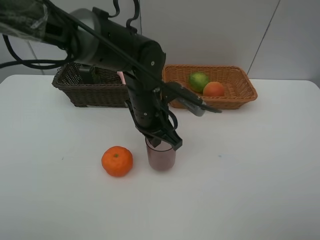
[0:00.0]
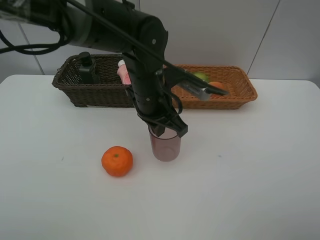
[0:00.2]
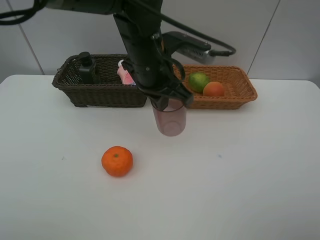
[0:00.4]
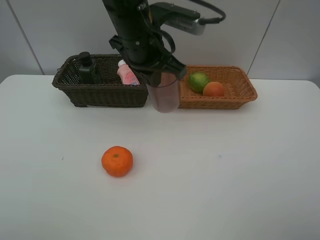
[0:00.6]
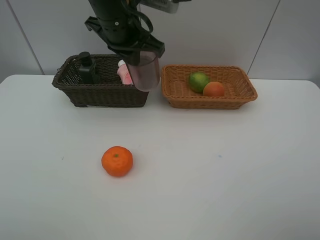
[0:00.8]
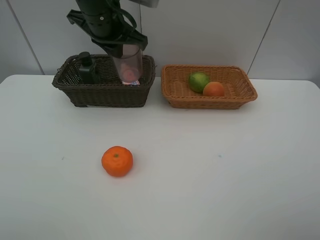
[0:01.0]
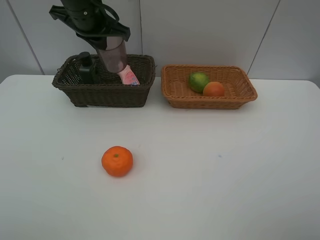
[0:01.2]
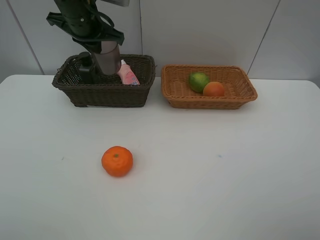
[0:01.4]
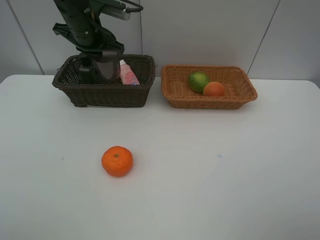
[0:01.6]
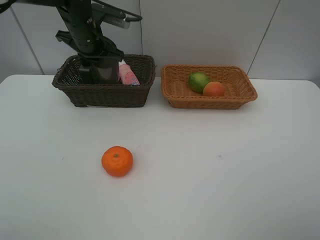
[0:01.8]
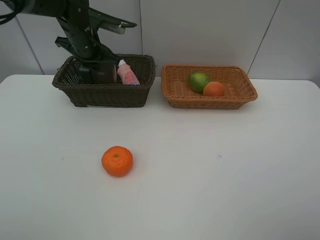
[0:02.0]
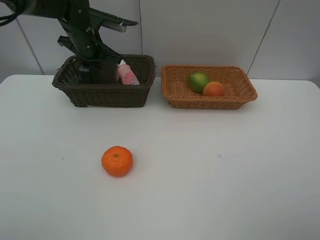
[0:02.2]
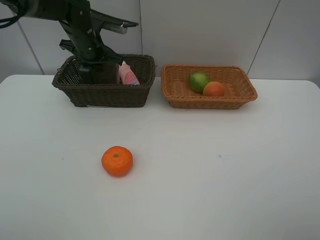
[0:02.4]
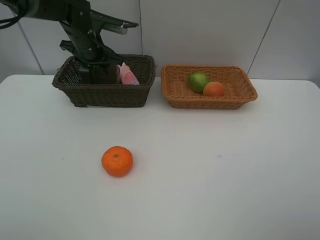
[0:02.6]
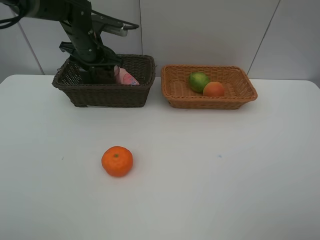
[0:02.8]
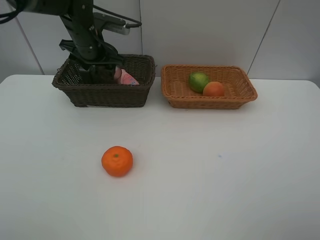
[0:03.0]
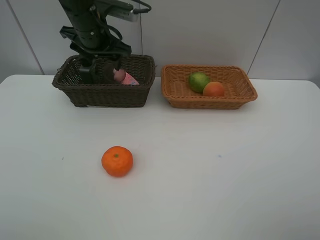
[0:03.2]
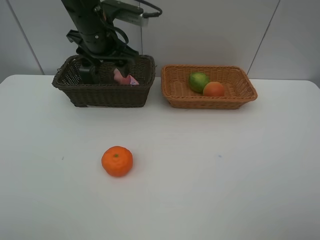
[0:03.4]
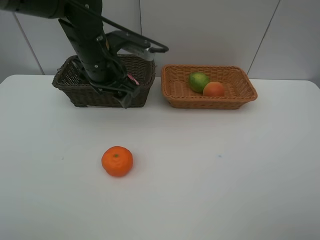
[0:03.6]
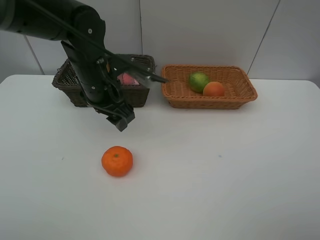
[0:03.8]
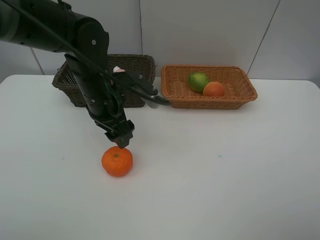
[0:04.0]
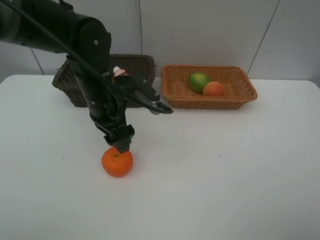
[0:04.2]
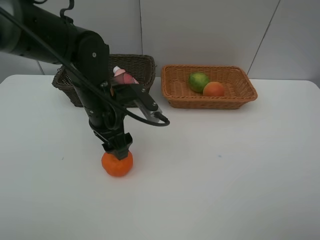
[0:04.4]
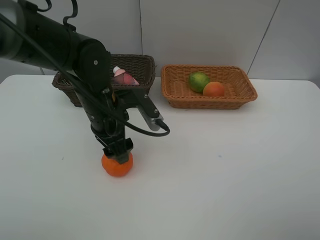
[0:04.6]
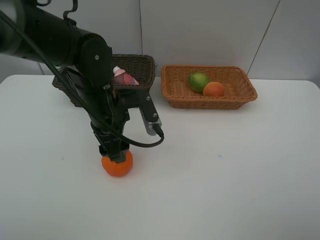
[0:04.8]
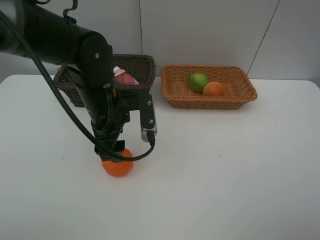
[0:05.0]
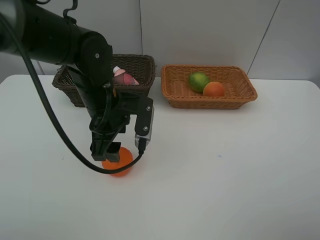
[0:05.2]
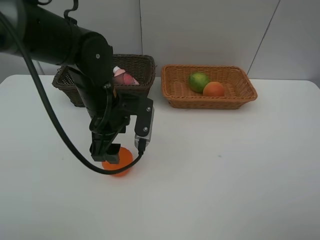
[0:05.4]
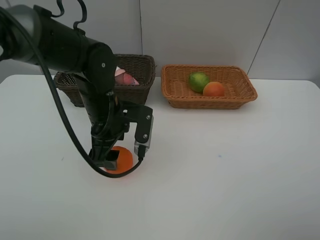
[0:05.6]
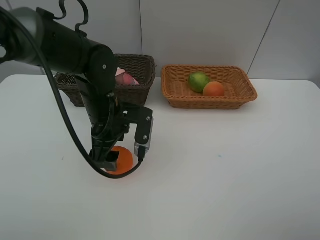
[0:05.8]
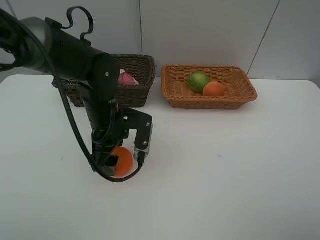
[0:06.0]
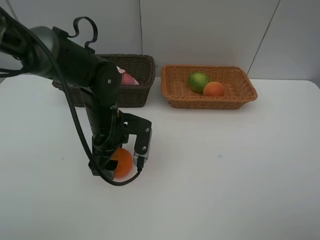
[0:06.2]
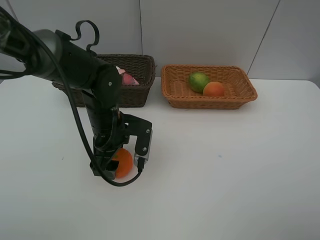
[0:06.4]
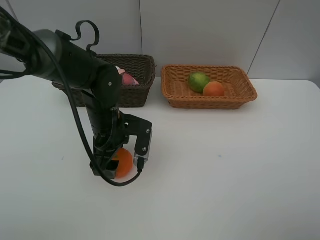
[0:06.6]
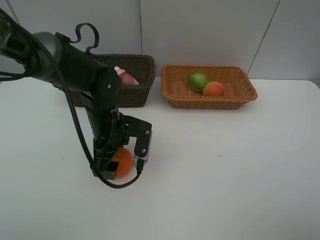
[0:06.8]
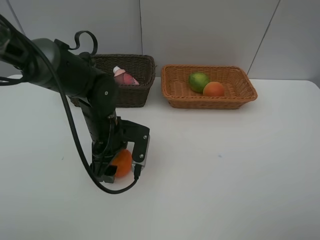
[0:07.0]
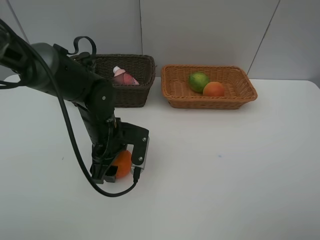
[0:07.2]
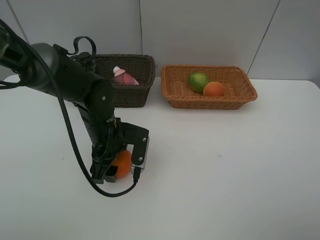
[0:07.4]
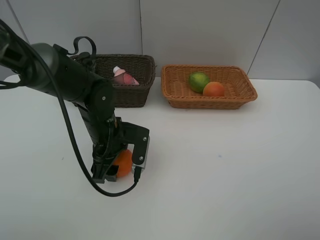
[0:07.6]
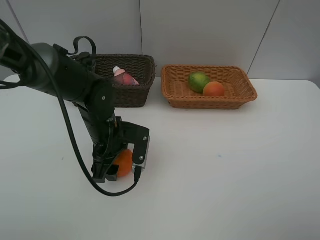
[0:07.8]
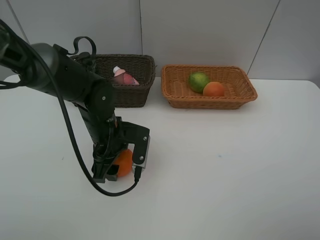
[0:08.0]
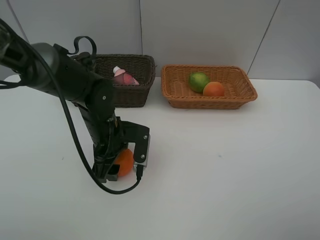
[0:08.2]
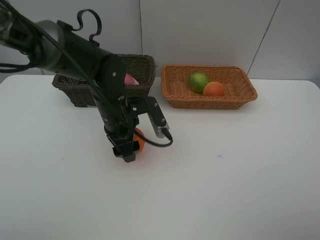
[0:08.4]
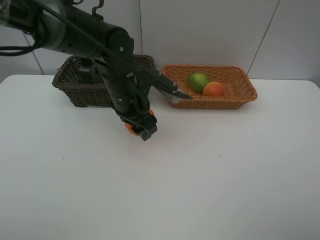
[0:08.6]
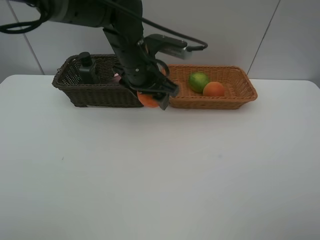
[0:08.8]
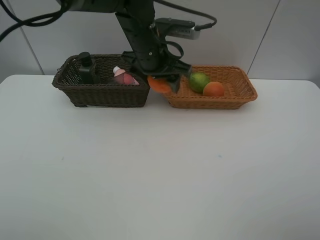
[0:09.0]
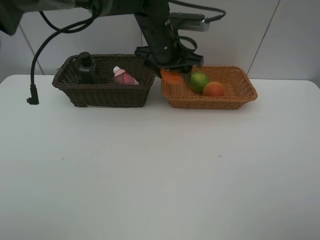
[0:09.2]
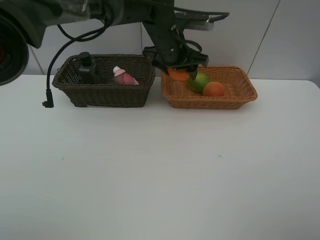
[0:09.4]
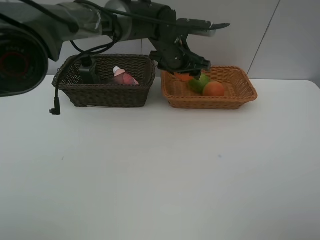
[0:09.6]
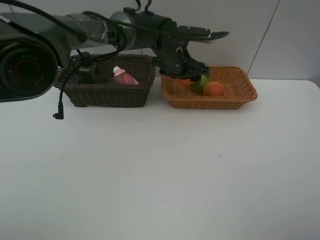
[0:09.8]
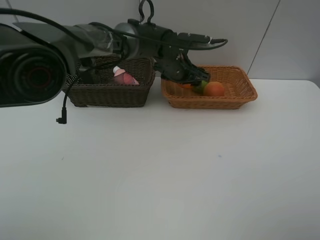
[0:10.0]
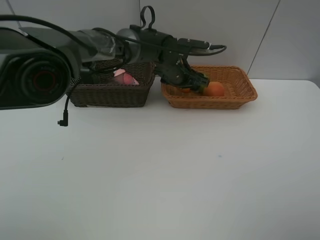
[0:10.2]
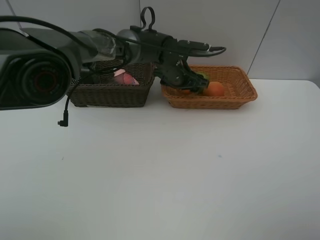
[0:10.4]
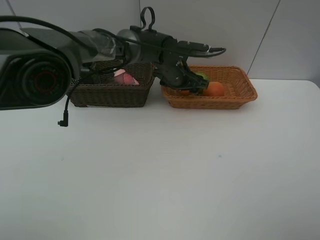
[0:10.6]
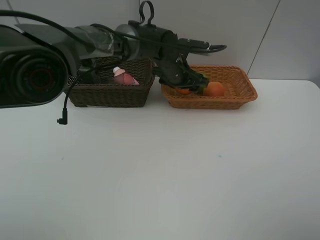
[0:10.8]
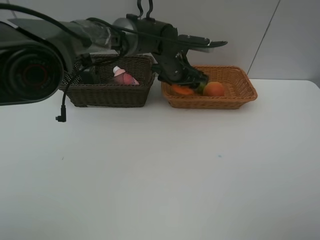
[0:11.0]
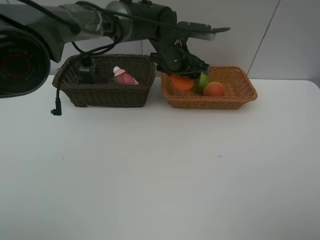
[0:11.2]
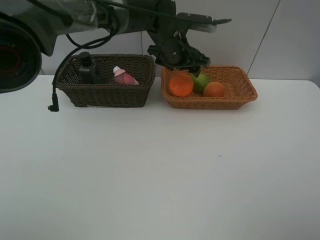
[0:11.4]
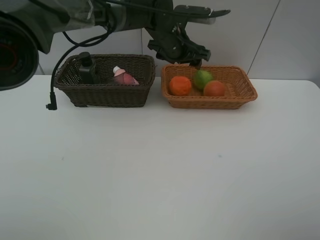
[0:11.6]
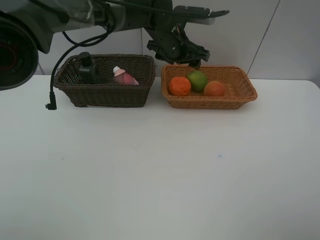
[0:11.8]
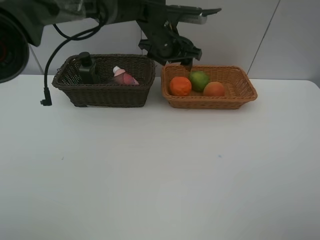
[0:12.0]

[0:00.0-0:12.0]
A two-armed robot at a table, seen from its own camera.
Task of the whole recording: place multiple objects separately in different baskets.
0:00.0 to 0:01.6: The left gripper goes about 20 cm to the left, forward and upward.
0:01.6 to 0:03.0: The left gripper opens.
0:03.0 to 0:04.4: The left gripper is displaced backward by roughly 15 cm.
0:06.0 to 0:07.6: The grippers make only small movements.
0:07.6 to 0:09.0: The left gripper goes about 20 cm upward, forward and to the right.
0:09.0 to 0:10.4: The left gripper goes about 15 cm downward, forward and to the right.
0:10.4 to 0:12.0: The left gripper heads upward, covering approximately 10 cm.

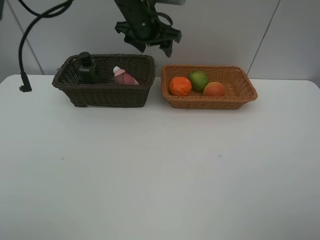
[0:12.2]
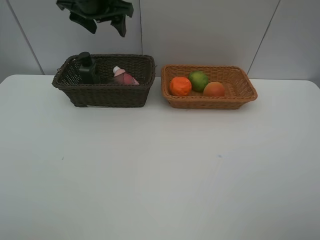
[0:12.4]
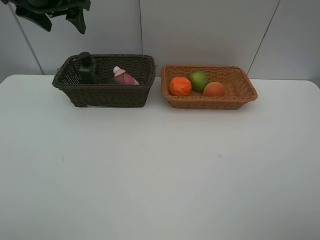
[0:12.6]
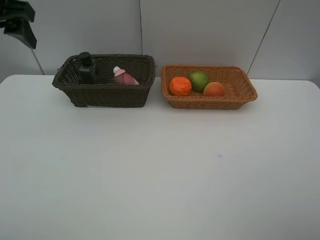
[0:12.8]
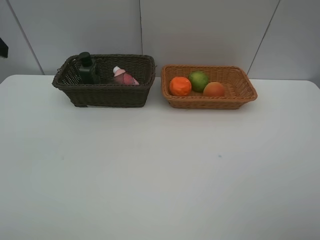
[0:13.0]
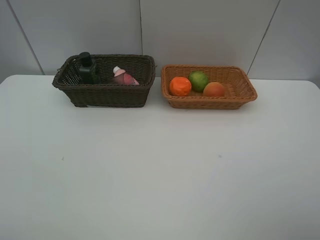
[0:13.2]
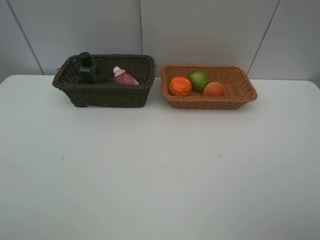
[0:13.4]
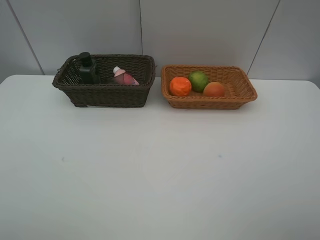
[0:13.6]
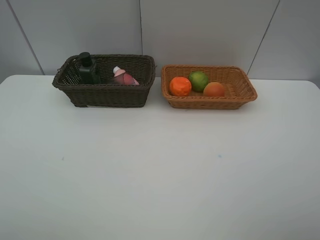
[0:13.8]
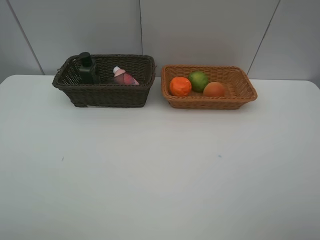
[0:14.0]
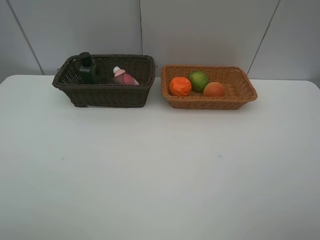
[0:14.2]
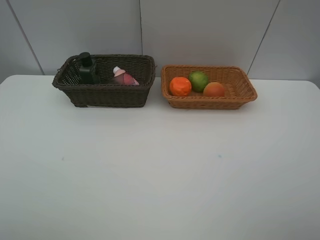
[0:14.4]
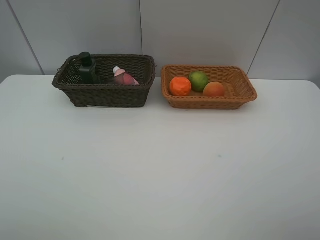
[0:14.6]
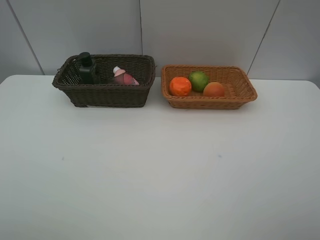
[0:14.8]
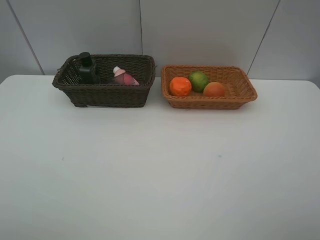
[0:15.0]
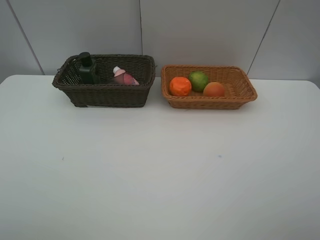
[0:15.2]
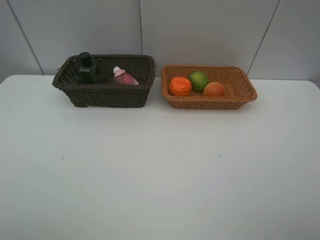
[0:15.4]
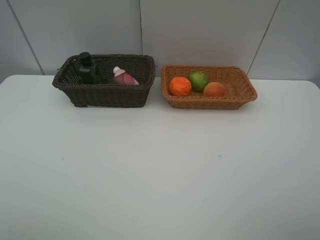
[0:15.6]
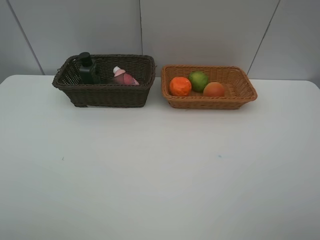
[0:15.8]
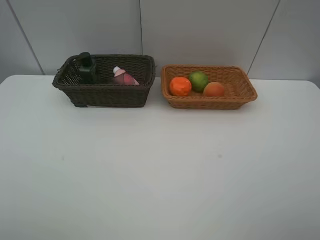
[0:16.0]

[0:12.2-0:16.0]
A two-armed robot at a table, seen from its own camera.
Task of the whole recording: place multiple objects separately in different baskets.
0:12.2 to 0:13.4: The left gripper is displaced backward and to the left by some 50 cm.
0:14.8 to 0:16.0: Neither gripper changes place.

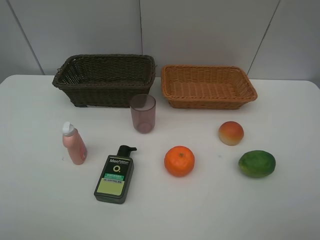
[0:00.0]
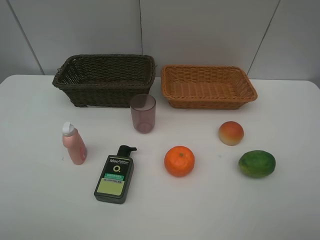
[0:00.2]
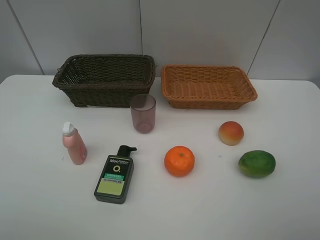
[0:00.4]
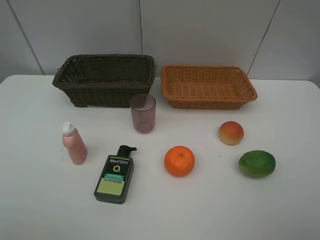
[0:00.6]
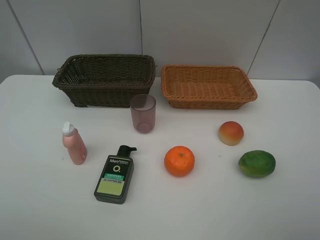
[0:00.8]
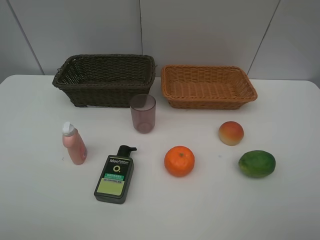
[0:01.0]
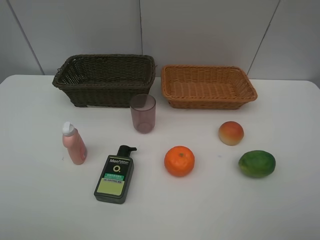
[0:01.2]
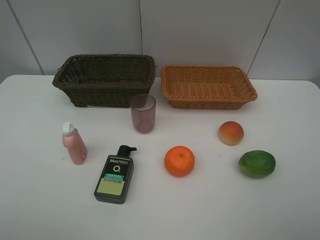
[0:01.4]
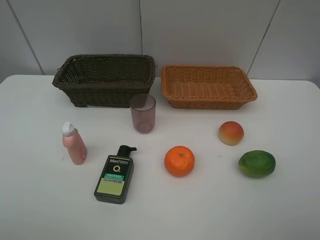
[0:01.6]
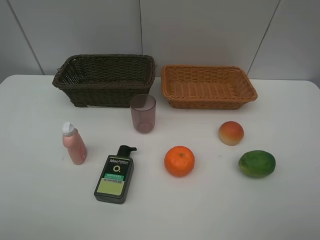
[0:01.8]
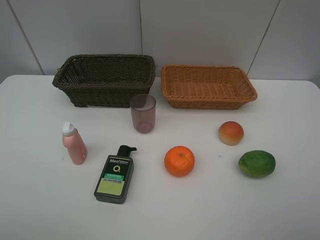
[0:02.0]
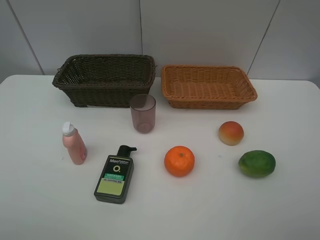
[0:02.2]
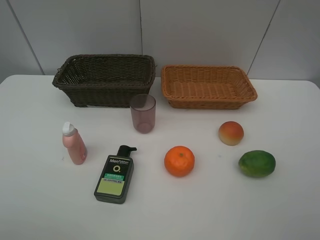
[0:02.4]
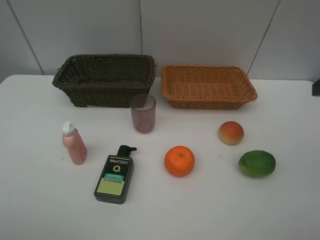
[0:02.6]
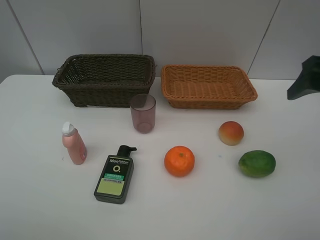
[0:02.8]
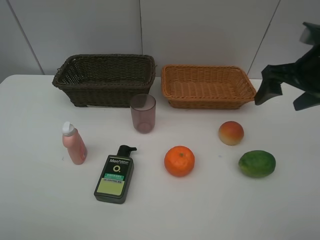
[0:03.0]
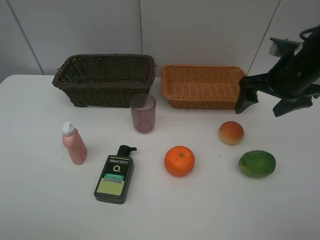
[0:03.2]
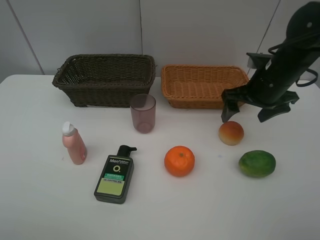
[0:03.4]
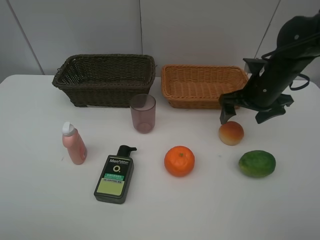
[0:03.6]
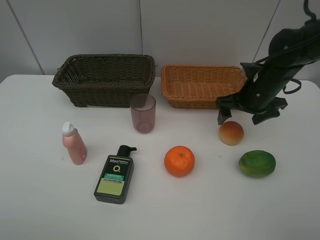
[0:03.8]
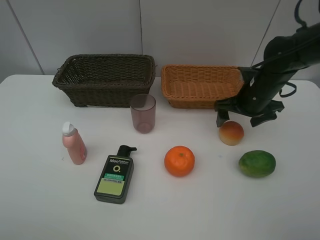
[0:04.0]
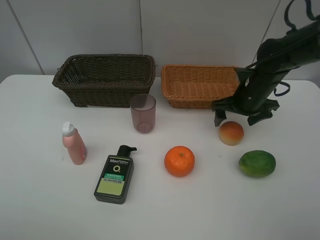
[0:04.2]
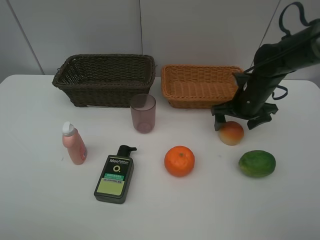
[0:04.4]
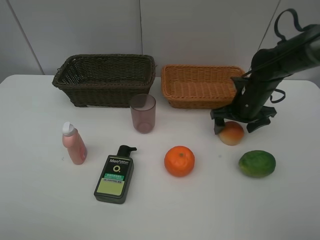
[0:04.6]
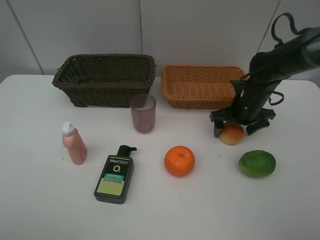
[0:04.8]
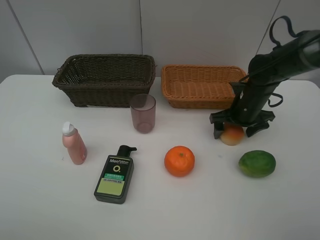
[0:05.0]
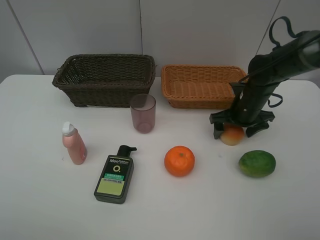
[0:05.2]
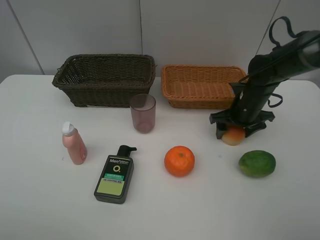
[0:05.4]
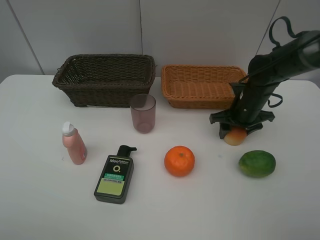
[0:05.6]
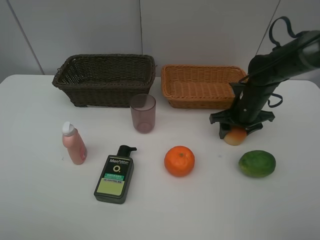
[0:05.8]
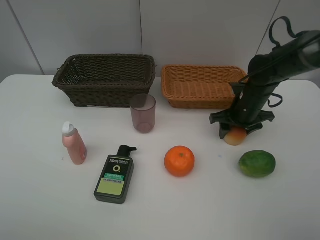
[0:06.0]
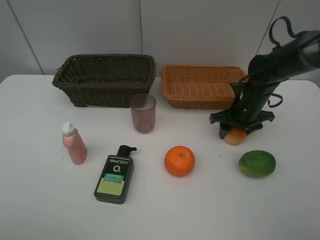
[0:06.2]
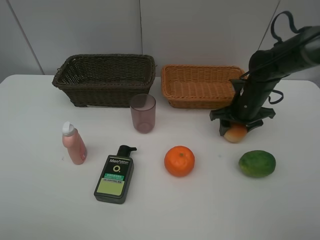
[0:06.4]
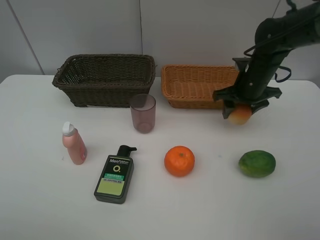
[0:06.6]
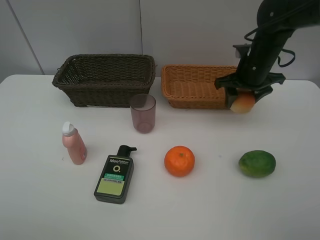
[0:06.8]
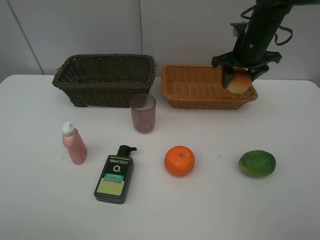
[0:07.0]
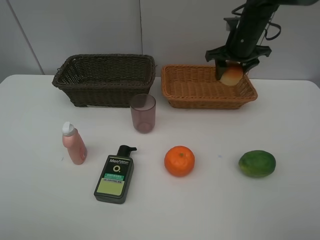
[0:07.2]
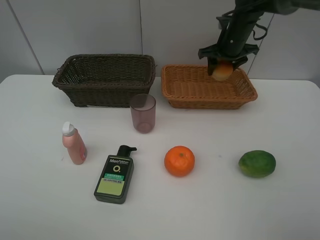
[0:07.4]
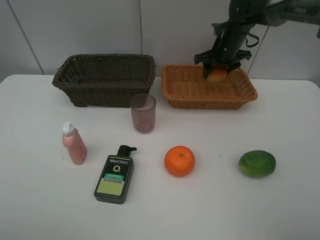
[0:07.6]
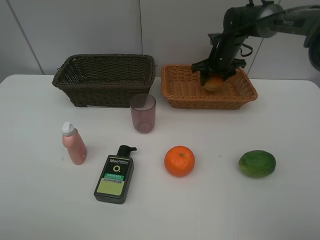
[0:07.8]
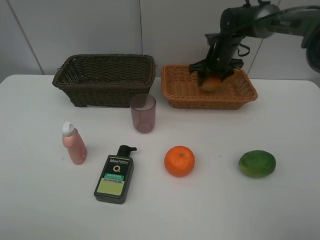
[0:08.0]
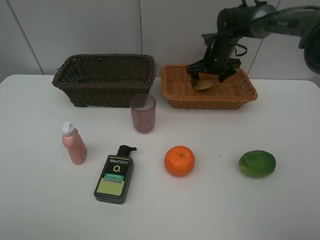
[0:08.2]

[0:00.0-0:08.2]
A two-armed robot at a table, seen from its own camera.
Task of the whole recording: place multiple objects separately in different baskets.
0:00.0 to 0:01.6: The two grippers keep their place.
0:01.6 to 0:03.2: The right gripper travels forward by roughly 30 cm.
0:03.2 to 0:05.0: The right gripper shifts some 15 cm downward and forward.
0:05.0 to 0:06.6: The right gripper heads upward, covering roughly 5 cm, and closes up.
0:06.6 to 0:08.2: The right gripper is displaced forward by about 15 cm, and opens its fingers.
